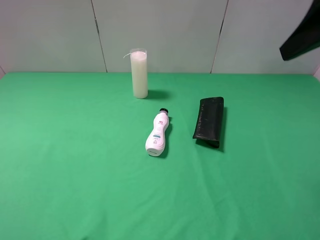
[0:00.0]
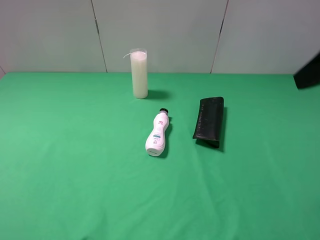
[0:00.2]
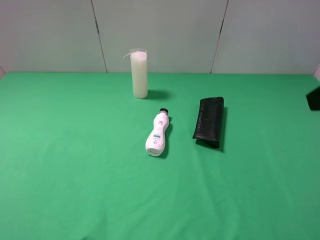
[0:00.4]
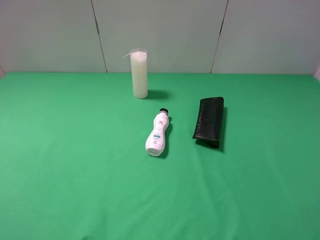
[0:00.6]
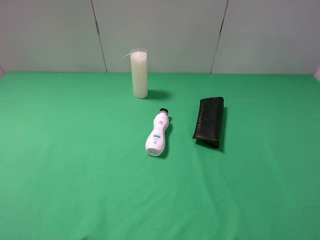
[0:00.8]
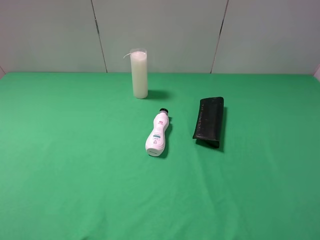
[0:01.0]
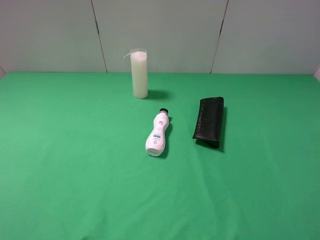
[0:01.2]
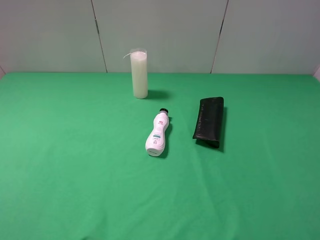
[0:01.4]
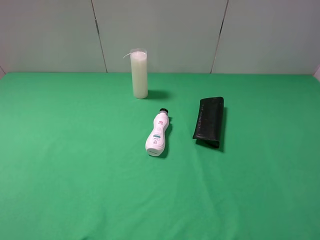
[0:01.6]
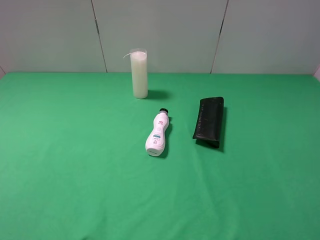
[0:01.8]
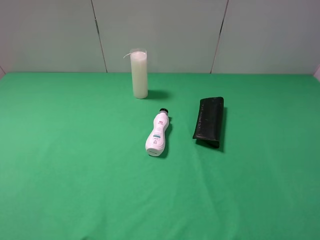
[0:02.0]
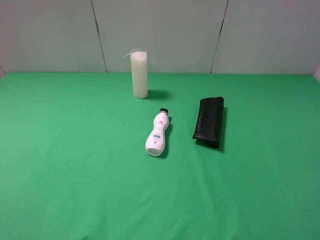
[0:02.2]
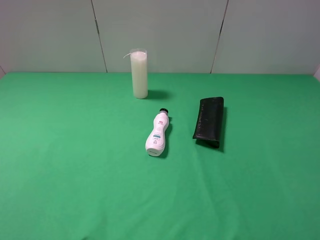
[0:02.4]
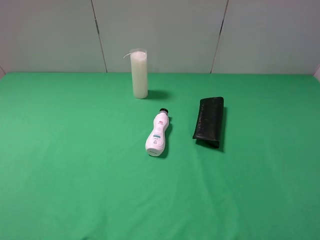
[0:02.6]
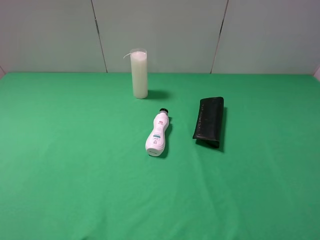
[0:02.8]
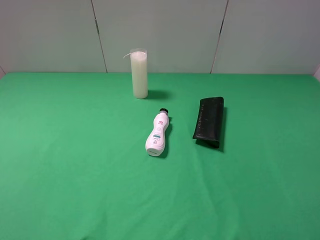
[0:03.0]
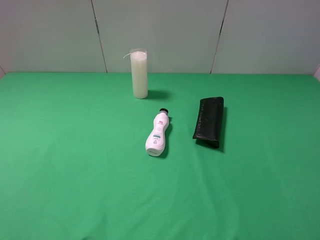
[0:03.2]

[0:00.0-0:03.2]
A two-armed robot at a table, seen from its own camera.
Task of the whole recording: use the left gripper to pick up the item and transfer it from the left gripper to the right gripper.
0:00.0 to 0:01.6: The right gripper heads backward and downward, covering some 20 cm.
